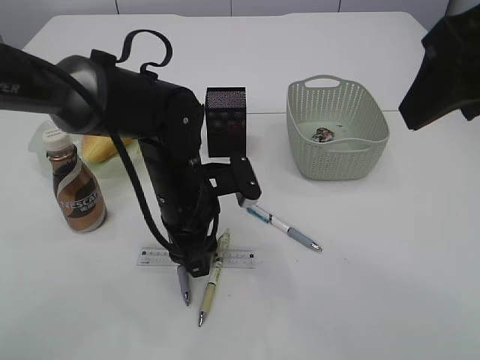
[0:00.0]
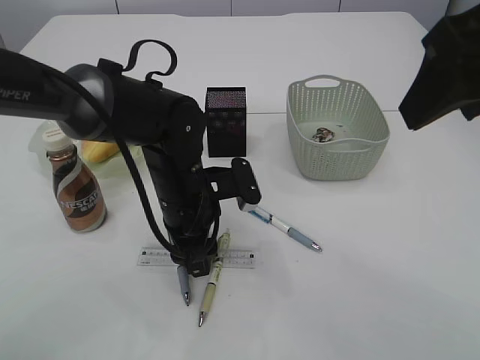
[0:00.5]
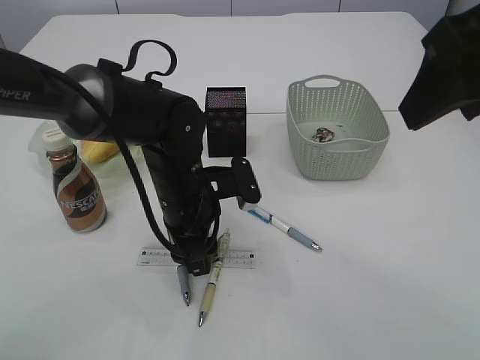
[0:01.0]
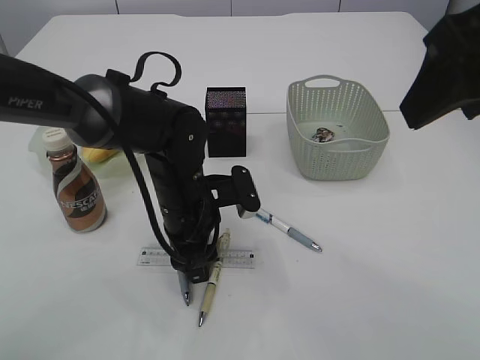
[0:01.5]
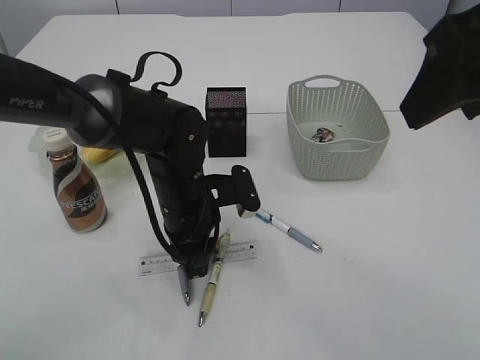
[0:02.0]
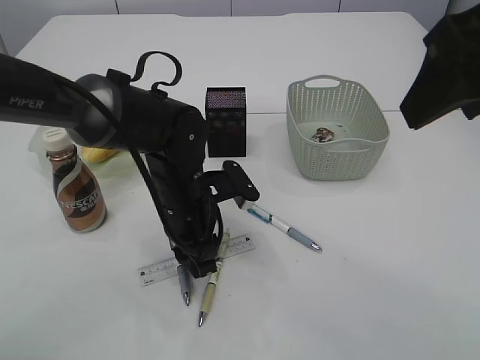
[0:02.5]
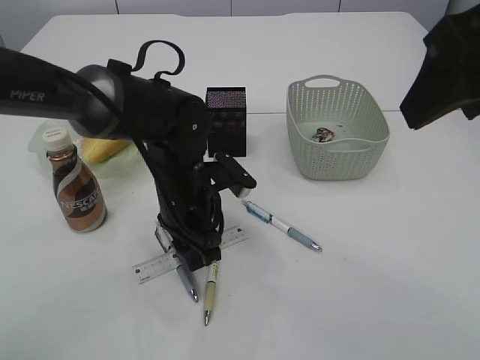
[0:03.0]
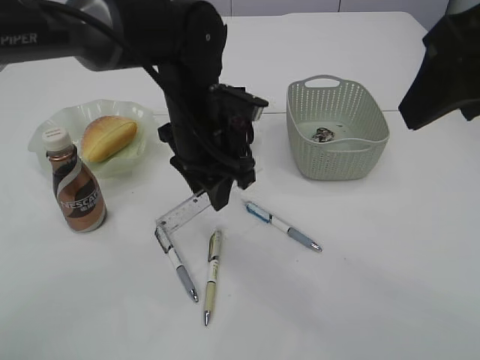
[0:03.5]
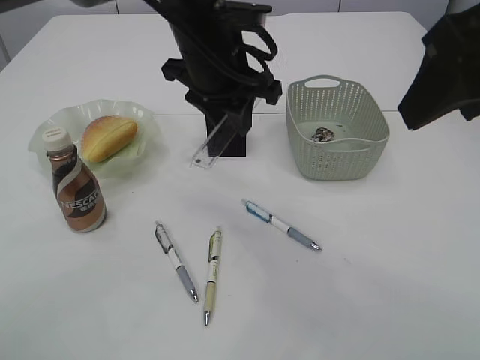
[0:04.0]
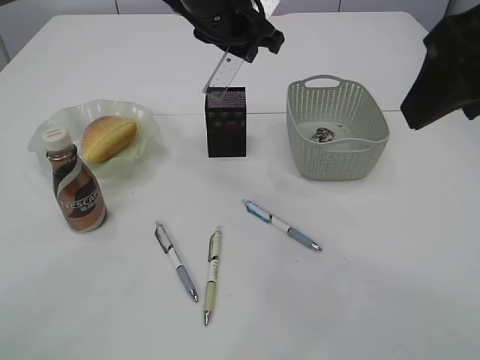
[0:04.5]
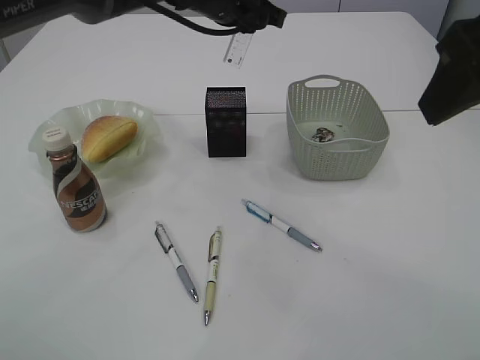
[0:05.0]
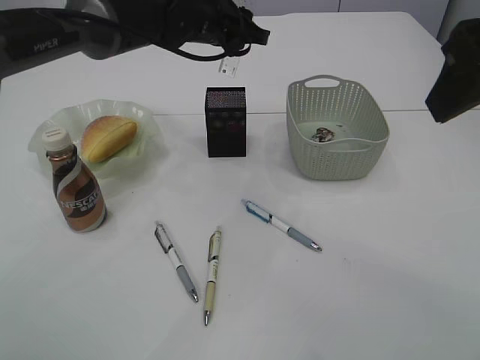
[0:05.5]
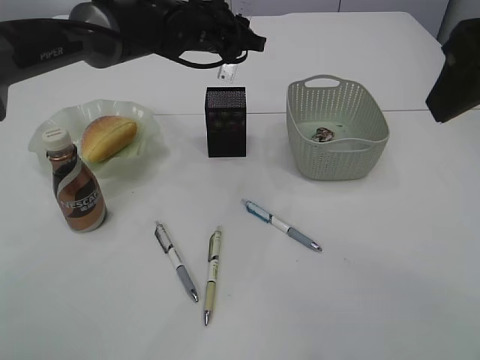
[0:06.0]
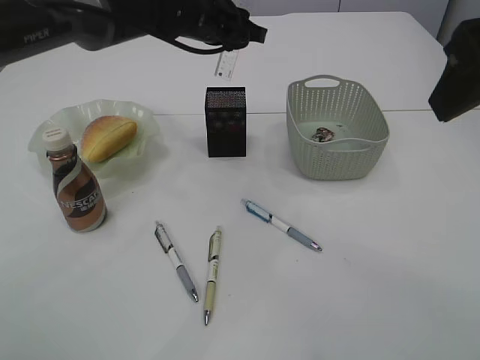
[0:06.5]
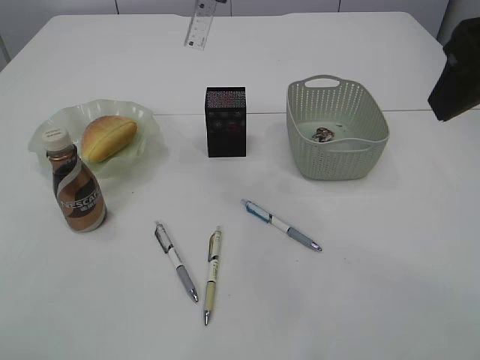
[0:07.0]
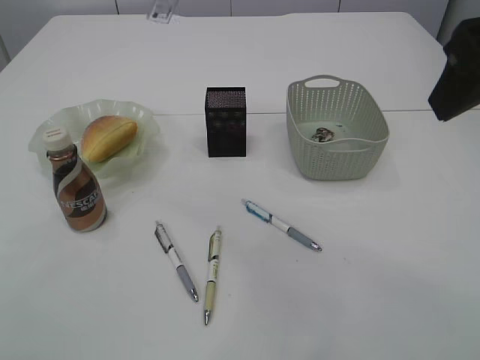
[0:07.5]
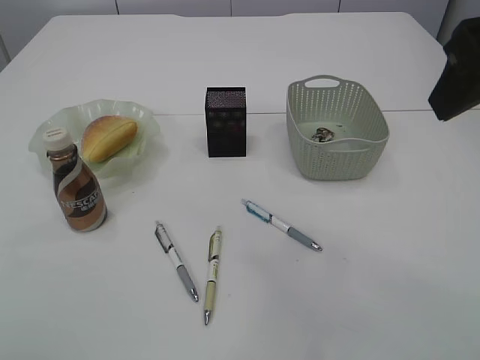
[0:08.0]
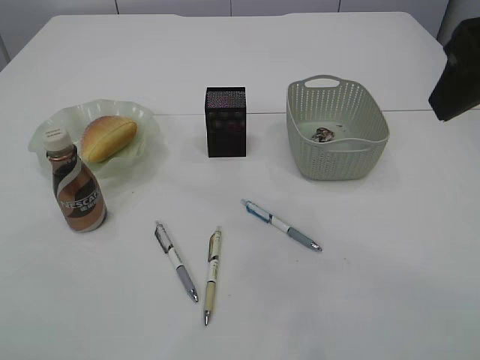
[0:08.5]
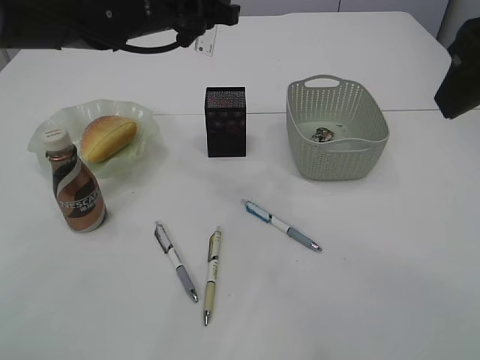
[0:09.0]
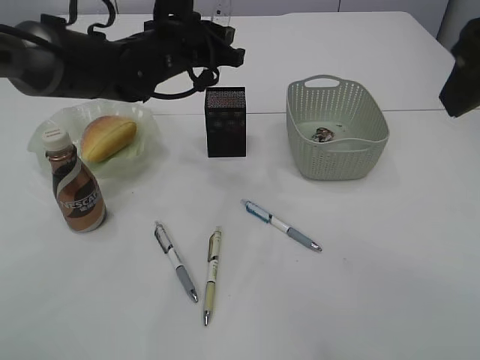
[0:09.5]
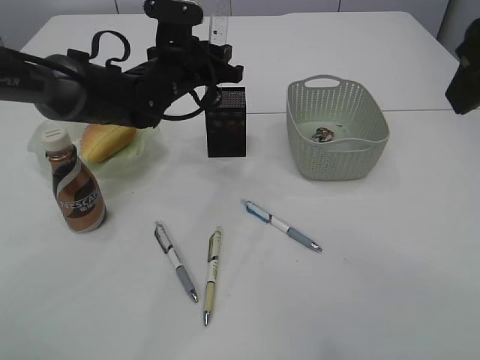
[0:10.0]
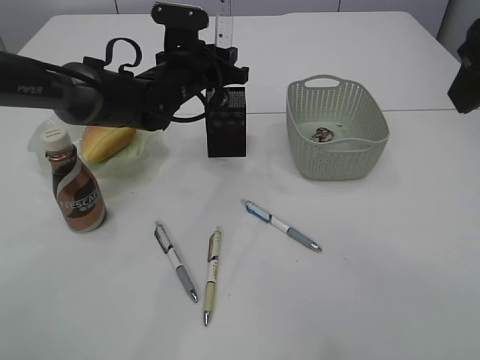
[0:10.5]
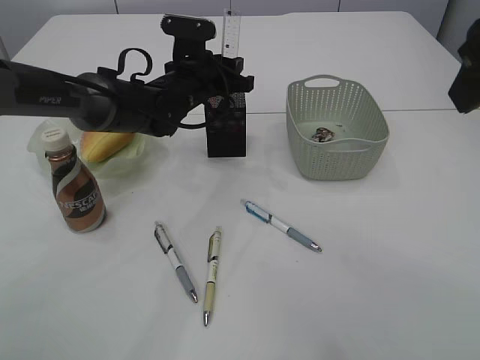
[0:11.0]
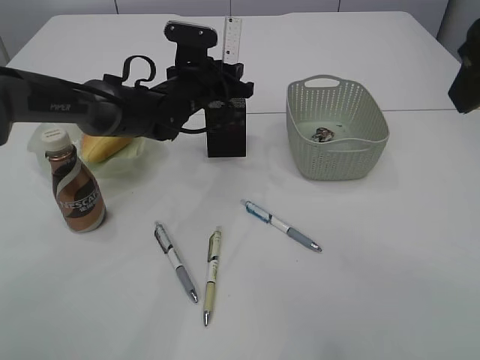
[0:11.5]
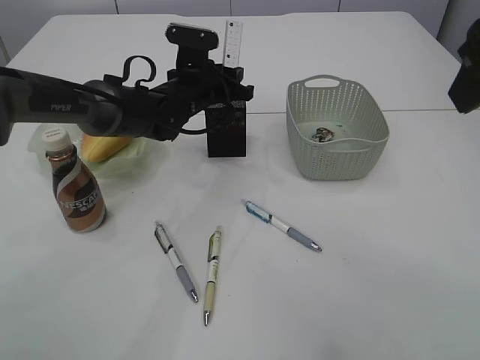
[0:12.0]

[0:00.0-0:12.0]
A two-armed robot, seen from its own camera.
Step, 0.0 to 3.0 s: pick up the ruler.
0.0 to 2.0 s: The left gripper closes its fingers.
2.0 to 4.0 s: The left gripper shifts roughly 15 cm upward.
4.0 to 6.0 s: The left gripper moves forward, some 15 cm.
6.0 to 8.0 s: The left gripper moves upward and backward, about 30 cm.
8.0 to 10.0 s: The left gripper moves downward, about 30 cm.
10.0 to 12.0 s: The left gripper shifts by some 5 cm.

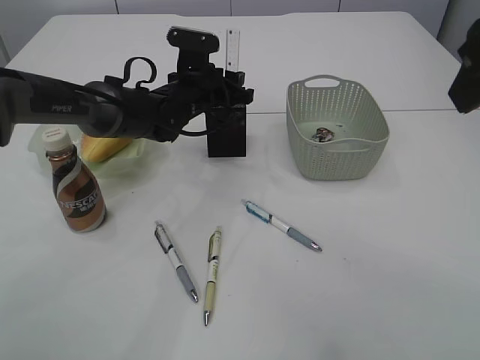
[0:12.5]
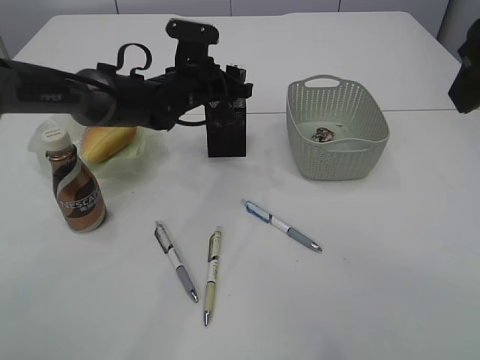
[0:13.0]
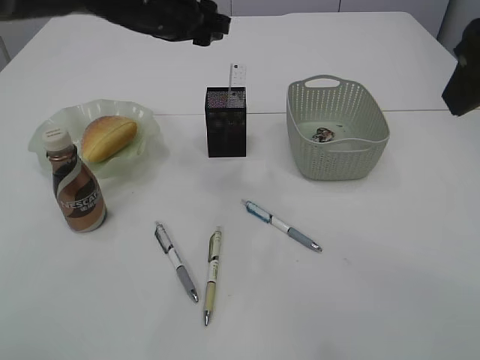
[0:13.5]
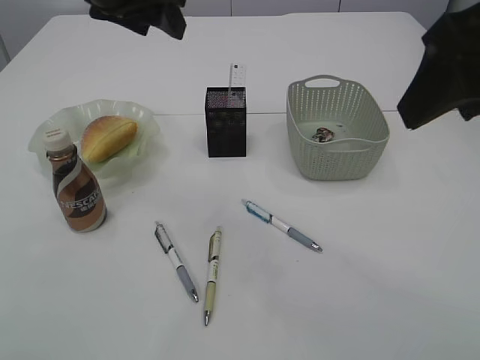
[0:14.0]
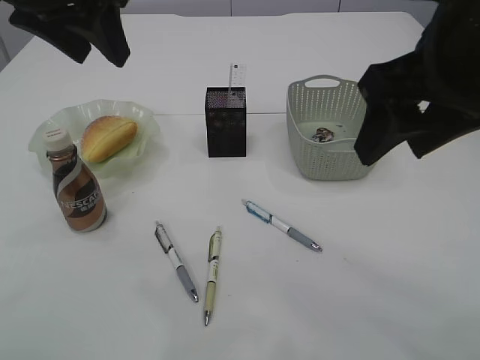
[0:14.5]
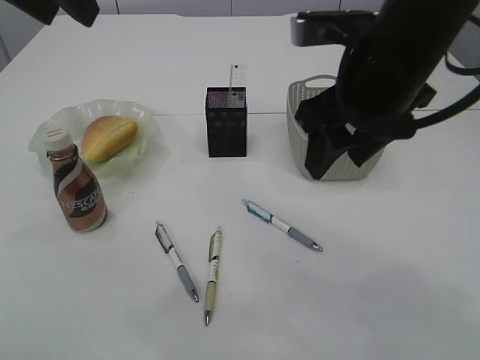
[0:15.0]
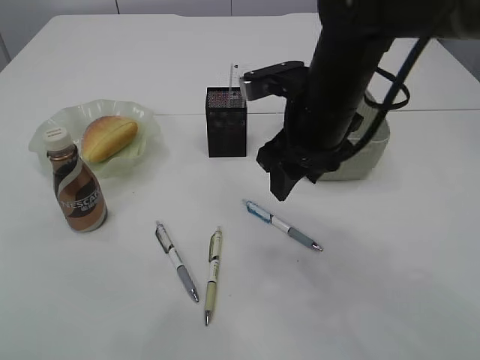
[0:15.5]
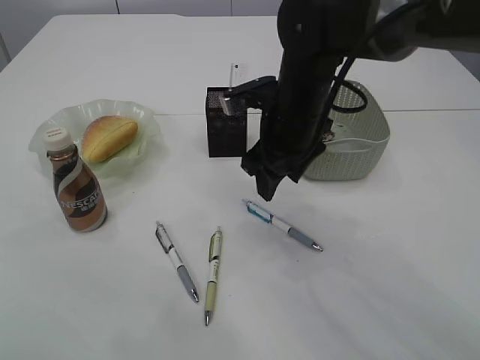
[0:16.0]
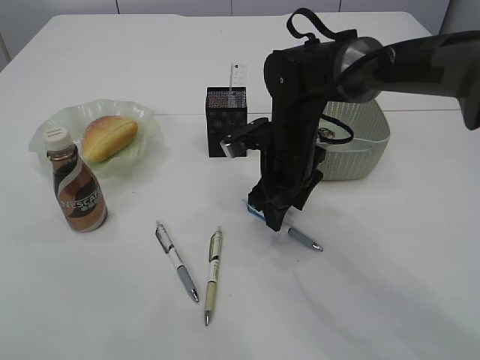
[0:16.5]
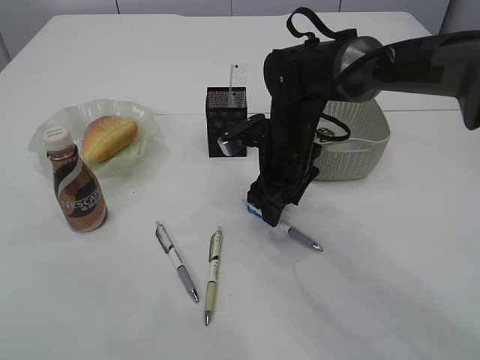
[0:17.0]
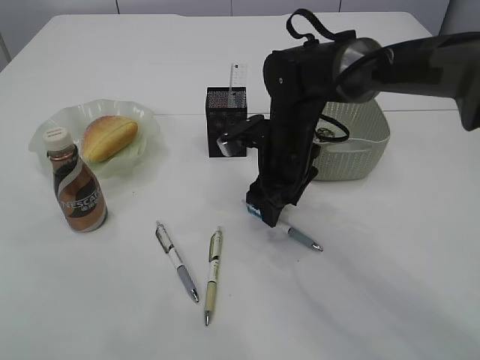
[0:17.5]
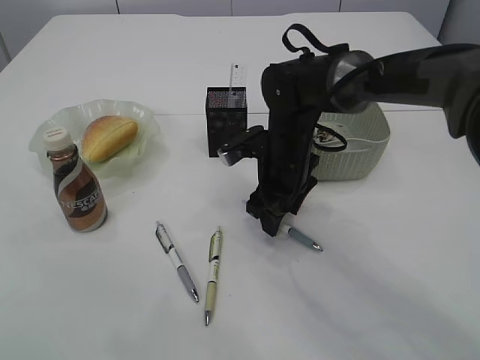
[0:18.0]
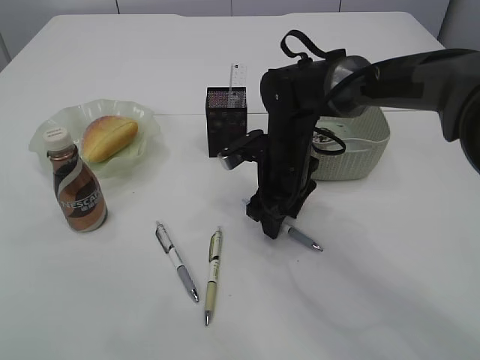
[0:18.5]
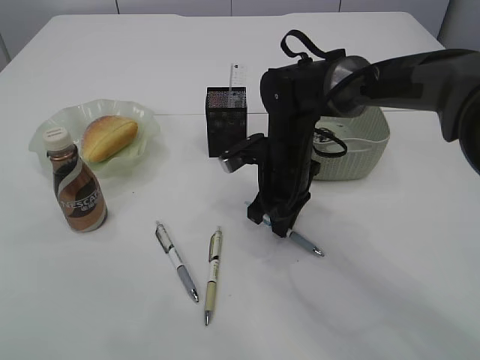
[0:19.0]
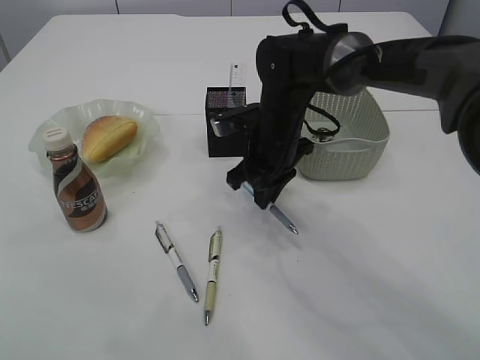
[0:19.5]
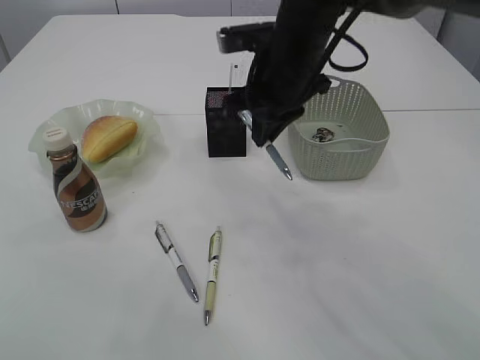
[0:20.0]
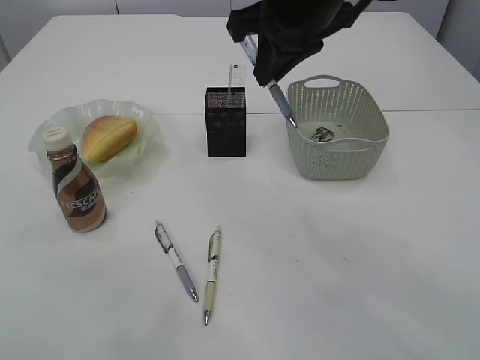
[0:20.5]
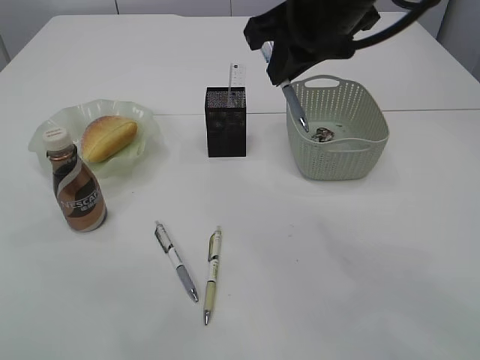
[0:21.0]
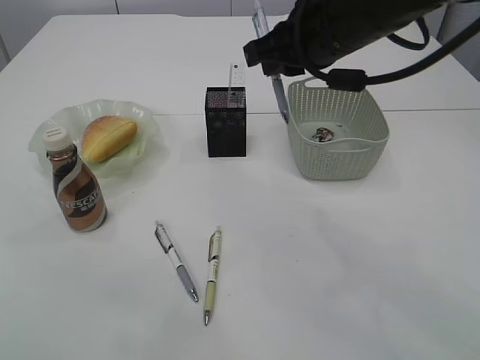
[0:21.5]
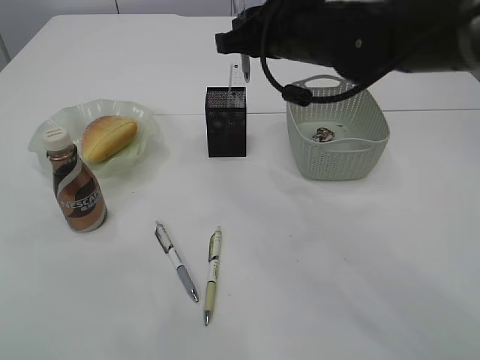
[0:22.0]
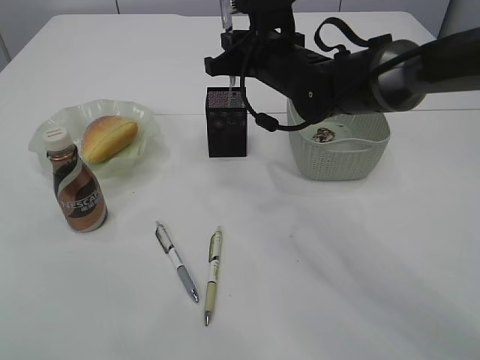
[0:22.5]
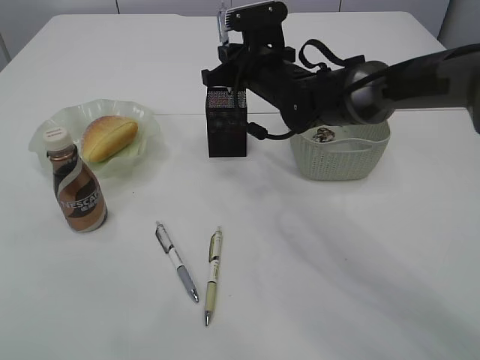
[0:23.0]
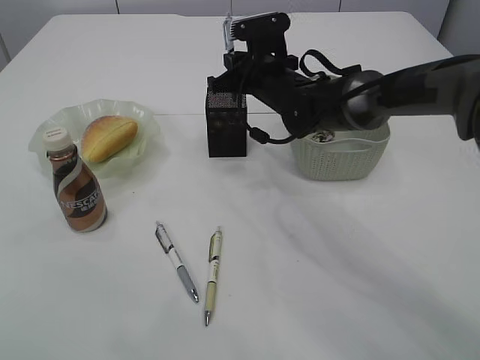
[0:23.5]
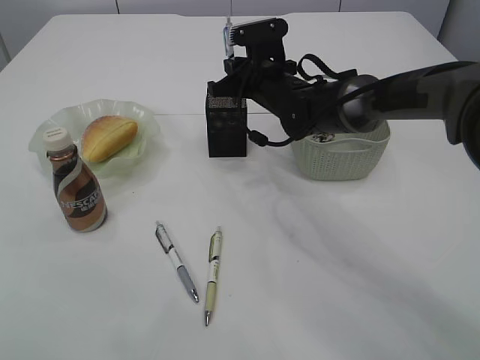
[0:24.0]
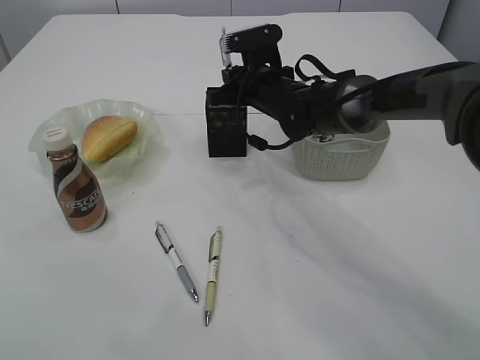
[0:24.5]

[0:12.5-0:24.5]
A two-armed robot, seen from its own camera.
Step, 13.5 to 19.5 s: Pick up the pen with right arm.
12.5 to 14.5 s: The left gripper moves upward and backward, roughly 30 cm; the right gripper shifts by roughly 5 cm.
14.5 to 16.5 s: The left gripper travels upward and backward by approximately 10 cm. The right gripper is displaced downward, forward and to the left by roughly 30 cm.
16.5 to 18.5 s: The grippers move only a little.
18.5 to 20.5 s: The right gripper moves upward, roughly 25 cm, and closes.
20.5 to 22.5 s: The right gripper goes some 15 cm downward and forward.
22.5 to 24.5 s: The right gripper goes roughly 5 cm downward.

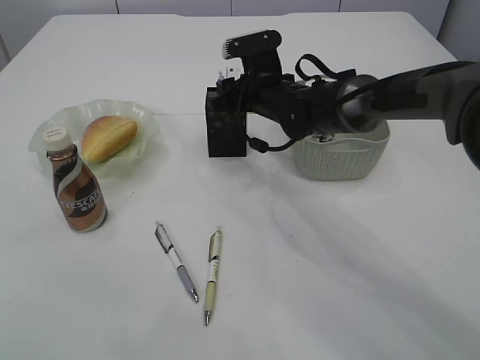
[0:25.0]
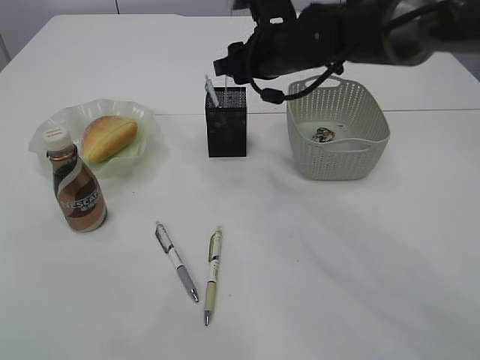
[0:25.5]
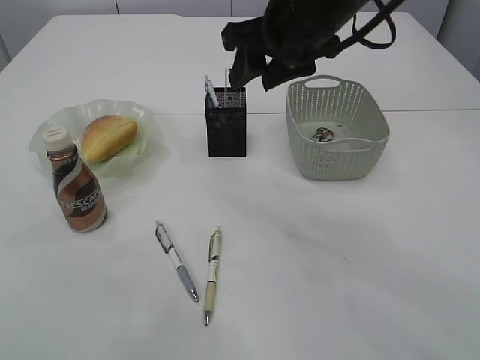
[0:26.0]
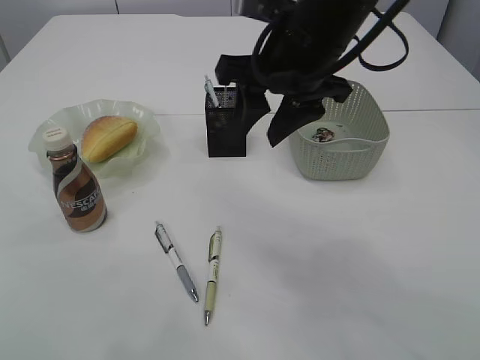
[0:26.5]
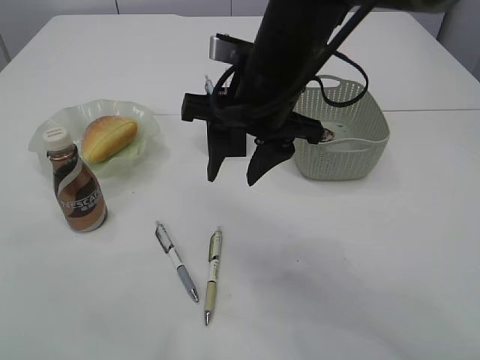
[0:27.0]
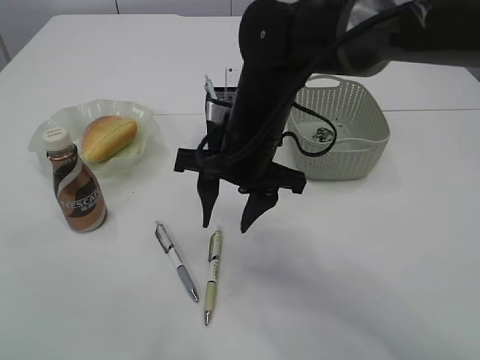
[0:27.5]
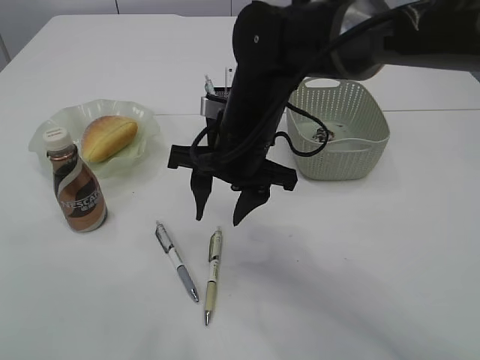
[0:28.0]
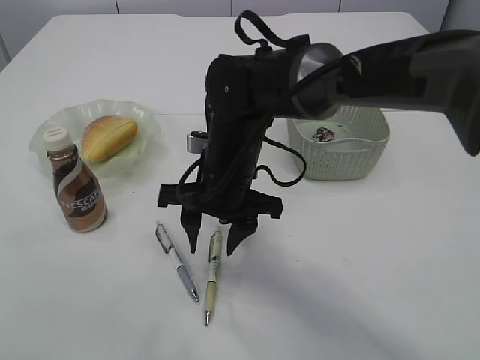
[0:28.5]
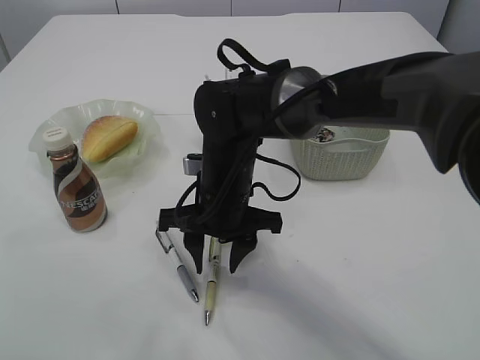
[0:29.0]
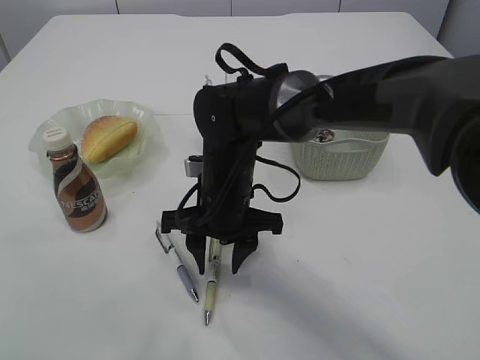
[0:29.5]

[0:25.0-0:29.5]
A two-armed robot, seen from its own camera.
25.0 to 27.0 s: The right gripper heads backward and upward, covering some 20 cm.
27.0 to 29.5 s: The right gripper travels downward by roughly 15 cm.
